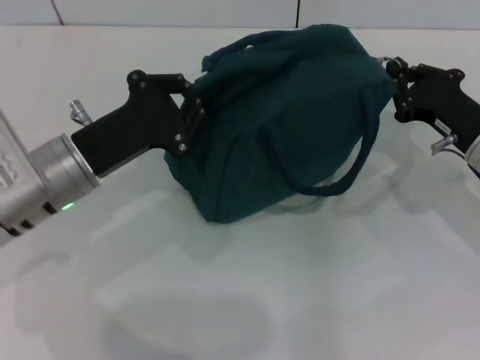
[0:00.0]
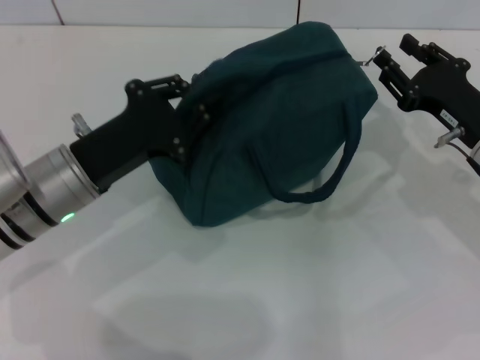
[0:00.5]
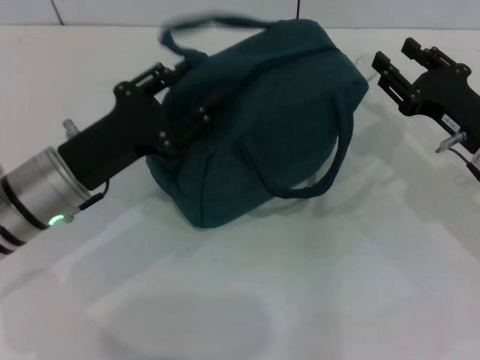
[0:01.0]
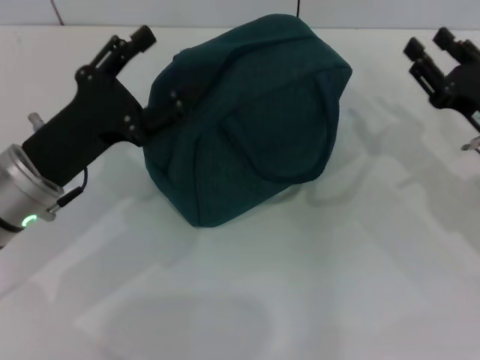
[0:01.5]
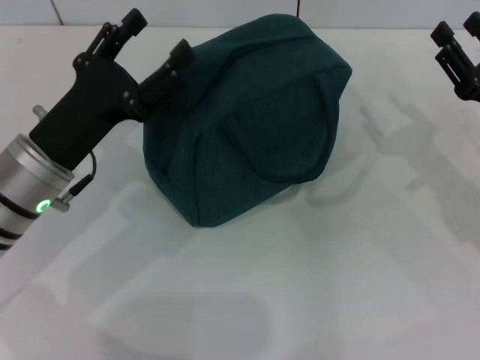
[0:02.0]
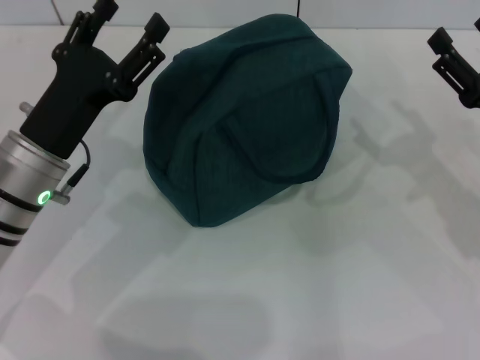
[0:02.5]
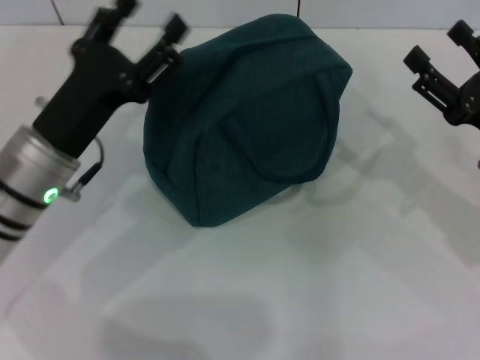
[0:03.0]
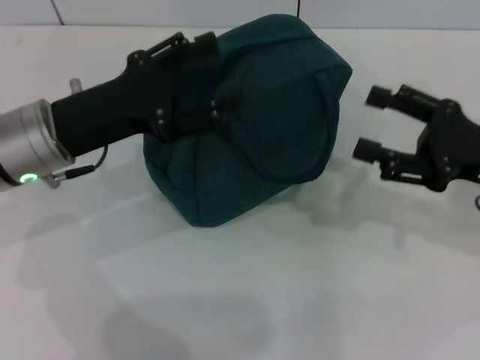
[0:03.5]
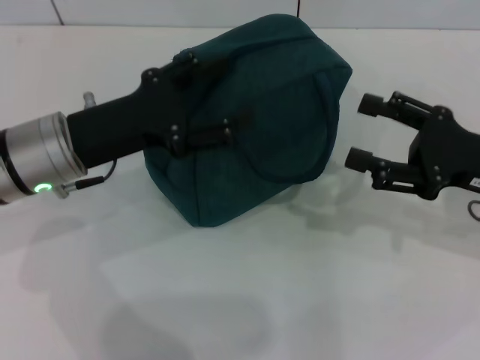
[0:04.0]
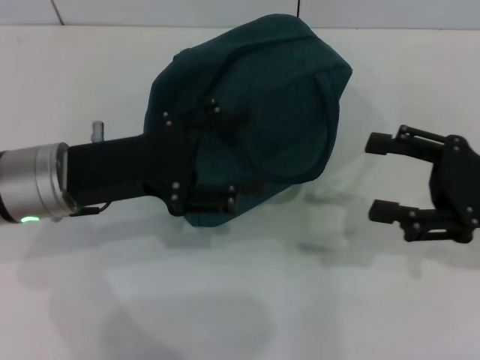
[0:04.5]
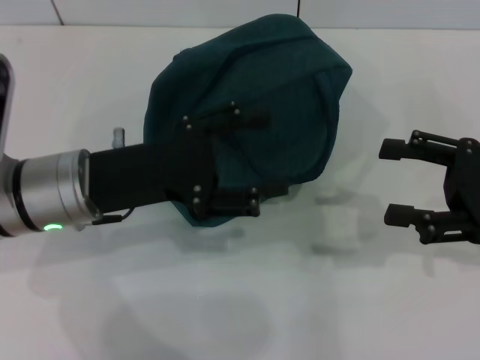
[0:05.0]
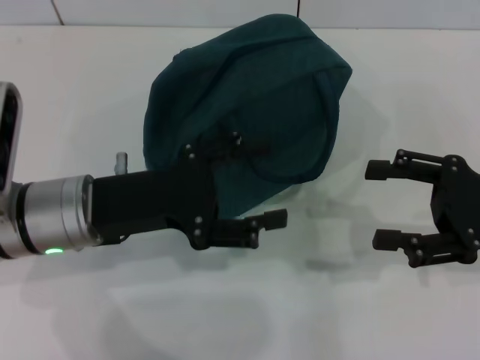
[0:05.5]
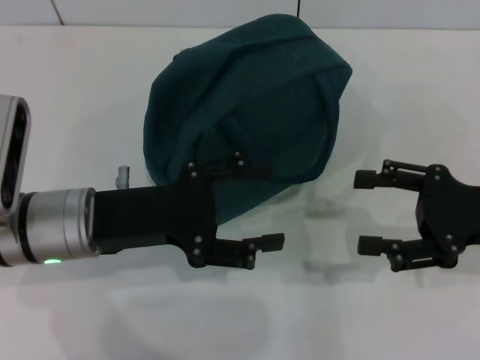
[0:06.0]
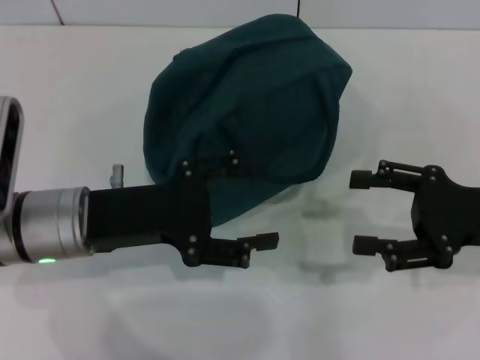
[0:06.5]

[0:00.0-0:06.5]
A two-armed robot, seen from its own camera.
0:00.0 to 0:02.0: The right gripper opens; the left gripper opens its fingers.
0:02.0 to 0:04.5: The right gripper opens up.
0:04.5 to 0:06.5: The grippers make only small movements.

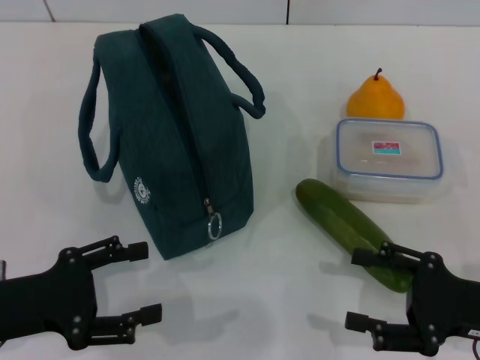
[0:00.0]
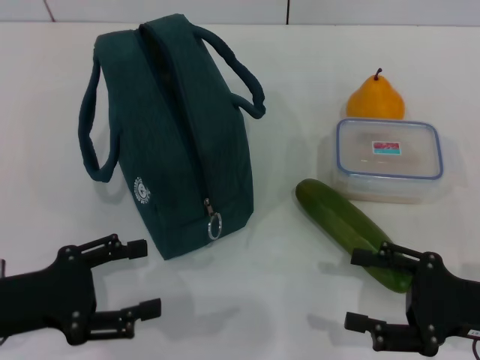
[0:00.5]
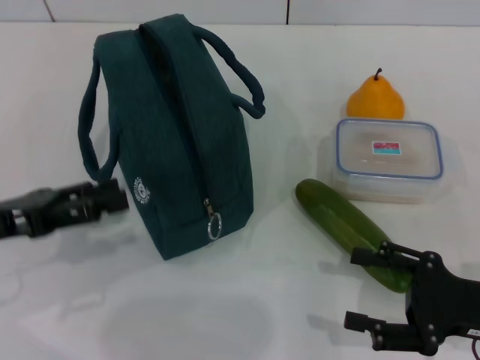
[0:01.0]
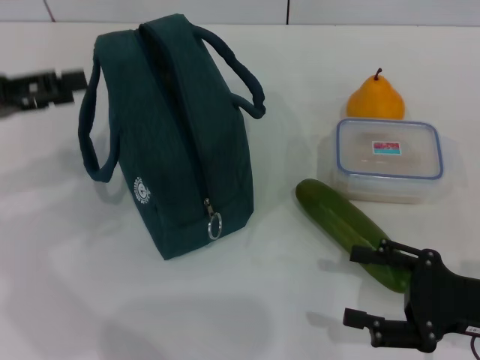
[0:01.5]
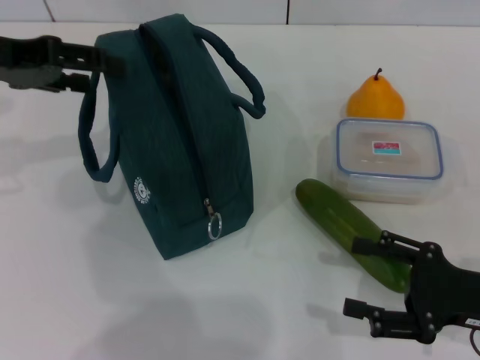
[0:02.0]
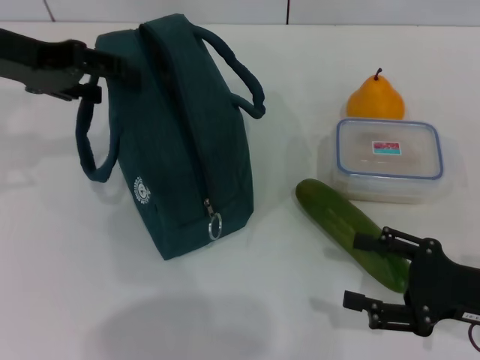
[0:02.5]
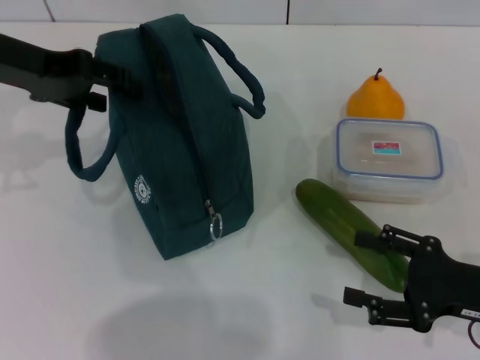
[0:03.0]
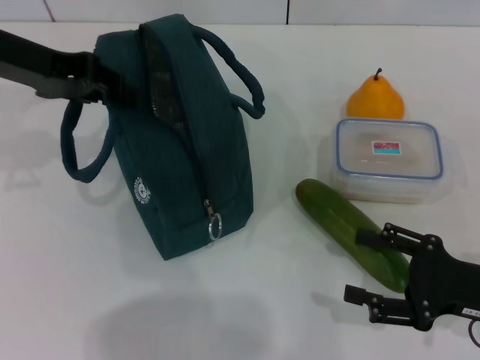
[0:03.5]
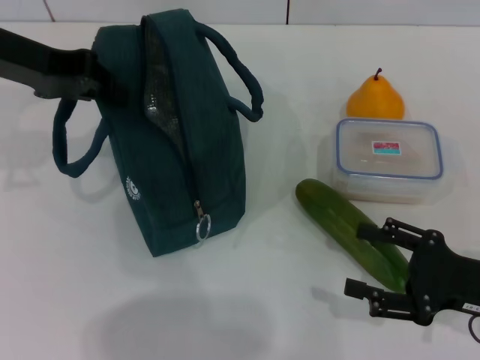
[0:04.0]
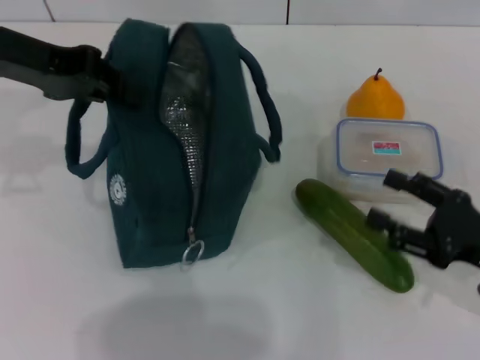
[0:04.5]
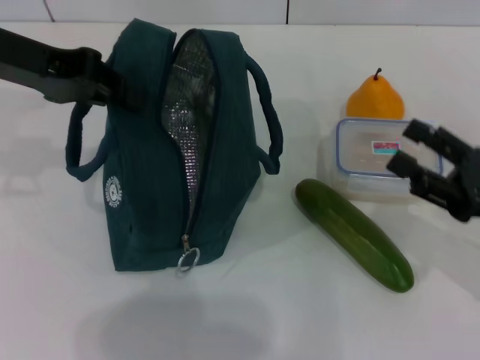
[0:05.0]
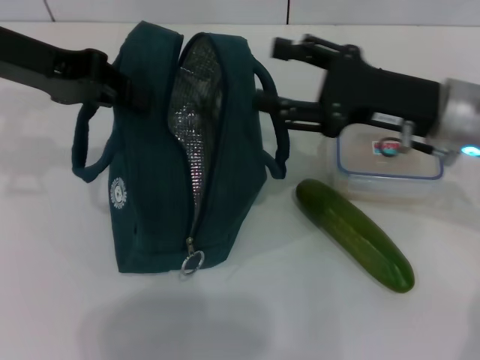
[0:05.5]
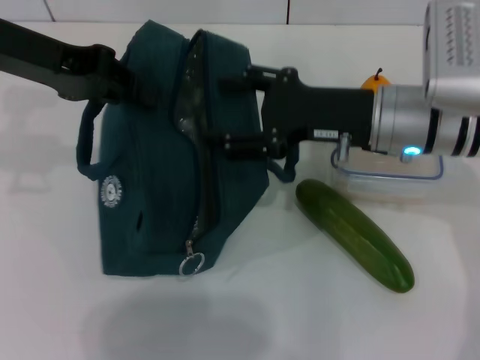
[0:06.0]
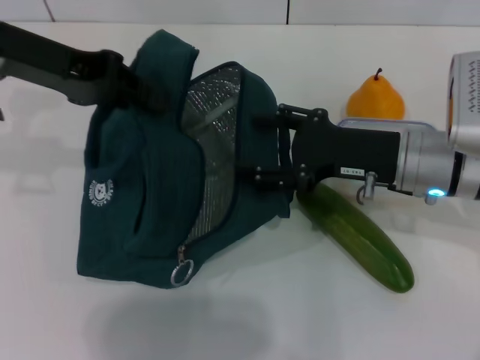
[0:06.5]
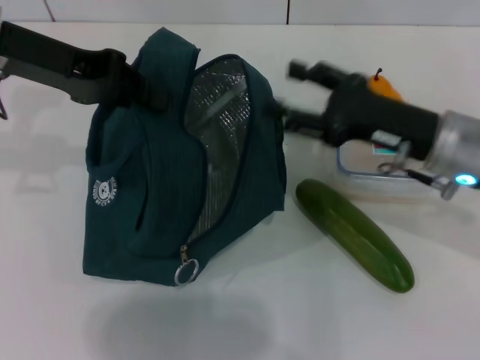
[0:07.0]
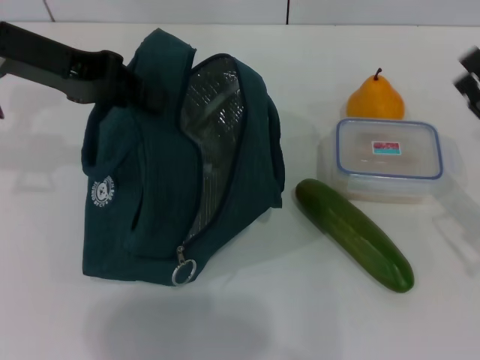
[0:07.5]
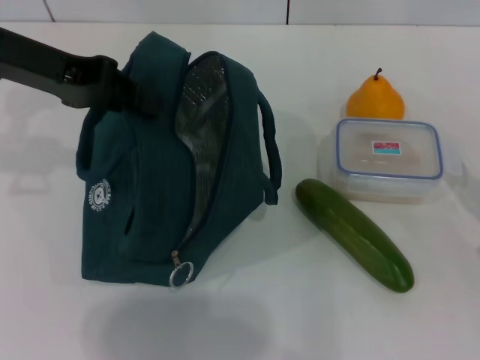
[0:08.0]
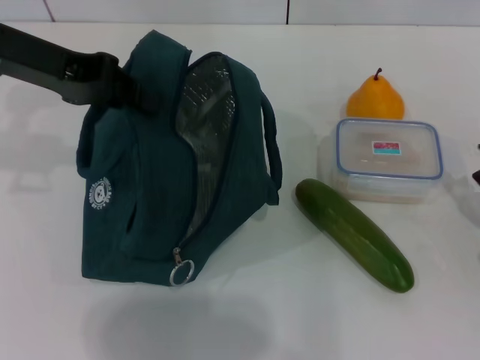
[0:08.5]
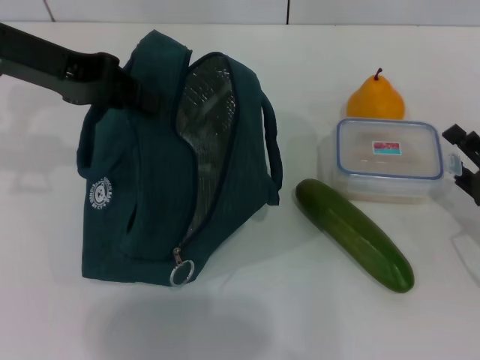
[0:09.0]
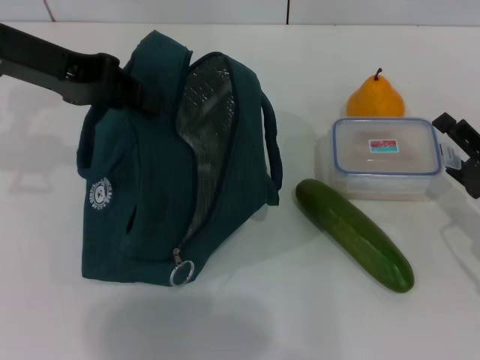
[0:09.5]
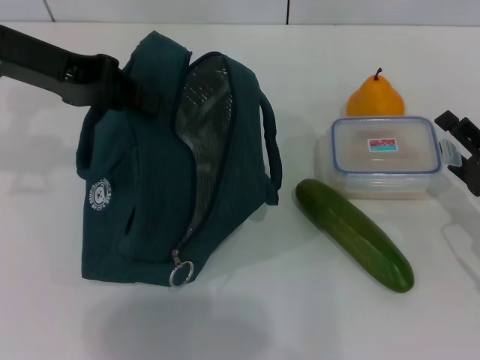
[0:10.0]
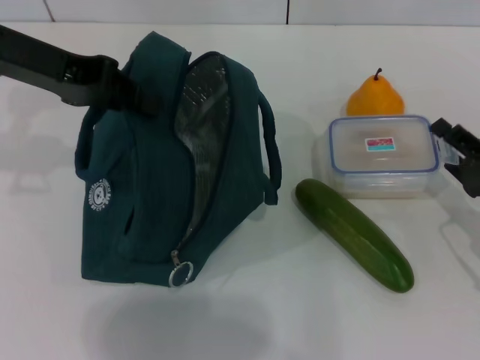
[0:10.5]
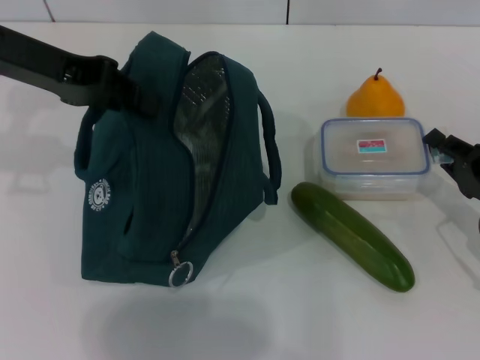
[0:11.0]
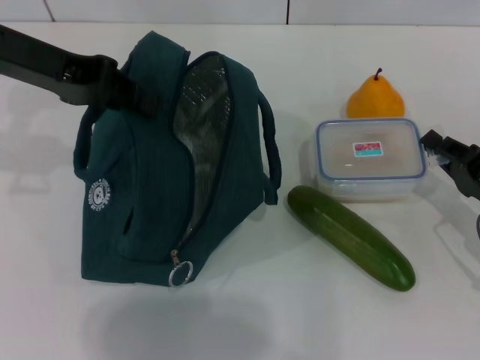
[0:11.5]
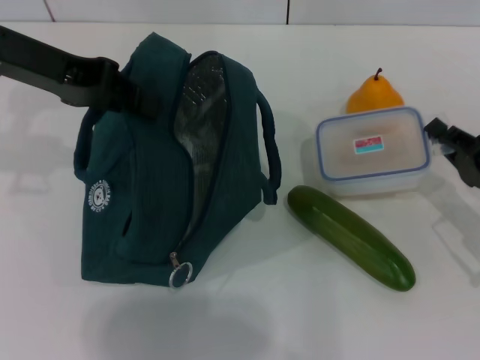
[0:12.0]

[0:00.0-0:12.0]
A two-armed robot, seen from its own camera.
Step, 0:00.0 to 0:07.0: Hold the lunch bag with your left hand.
Step, 0:07.5 to 0:11.5: Pick up the lunch box with your right hand.
0:00.0 to 0:02.0: The left gripper shifts about 25 cm upward and forward.
0:02.0 to 0:04.0: The left gripper closes its fingers.
0:04.0 to 0:06.0: The right gripper heads to the left, forward and upward, covering about 20 cm.
0:06.0 to 0:08.0: The right gripper shifts approximately 25 cm to the right, backward and downward.
0:08.0 to 0:10.0: The right gripper moves roughly 5 cm.
0:10.0 to 0:12.0: The right gripper closes up.

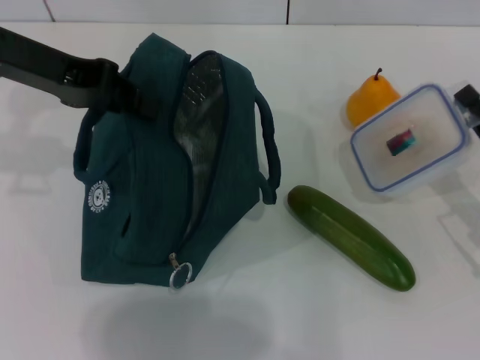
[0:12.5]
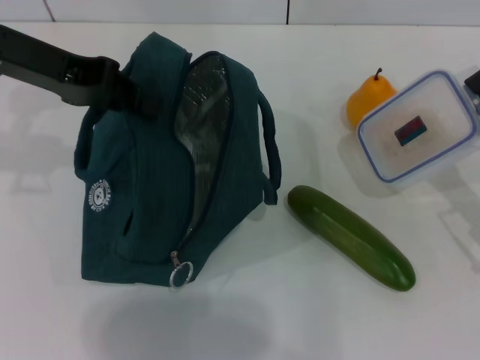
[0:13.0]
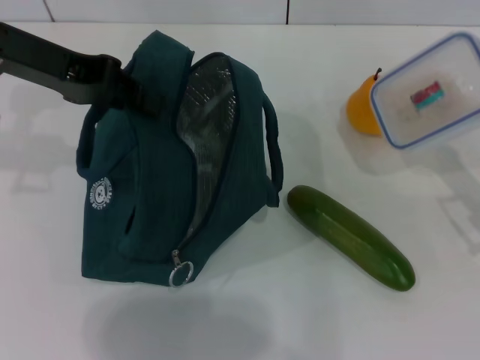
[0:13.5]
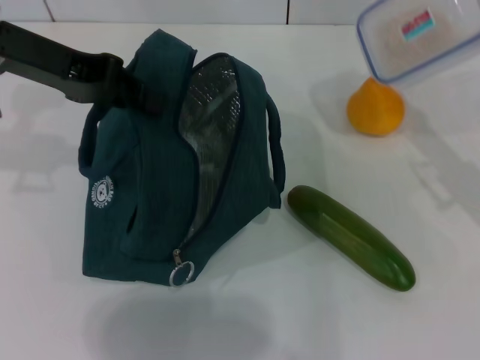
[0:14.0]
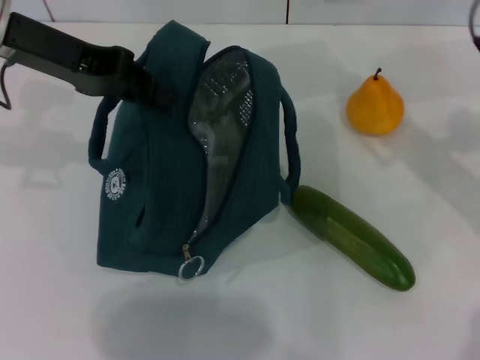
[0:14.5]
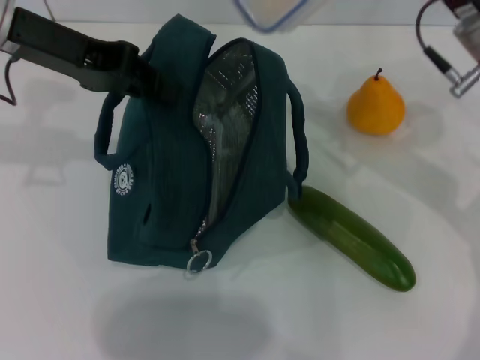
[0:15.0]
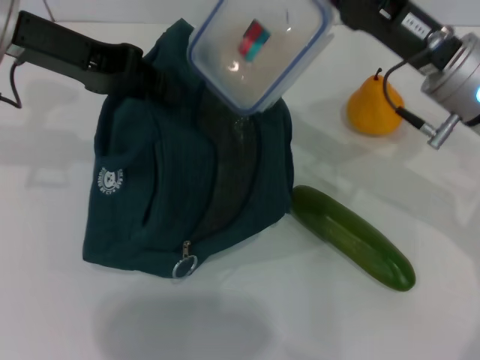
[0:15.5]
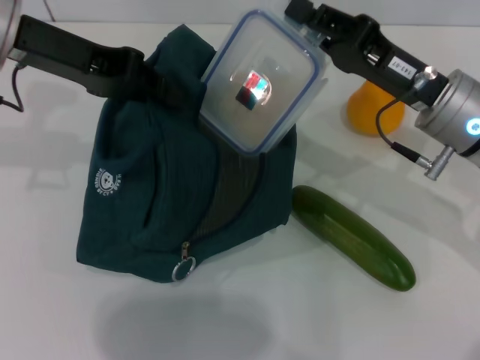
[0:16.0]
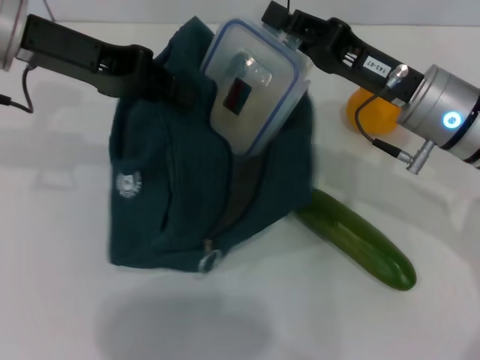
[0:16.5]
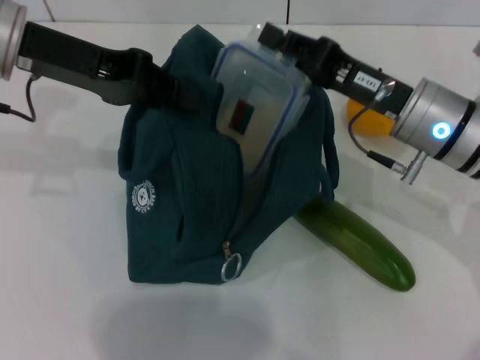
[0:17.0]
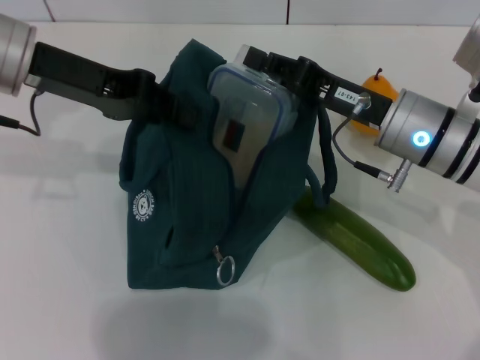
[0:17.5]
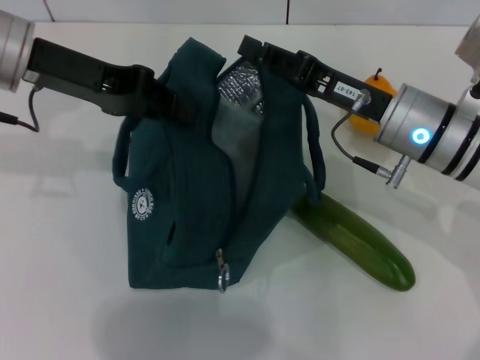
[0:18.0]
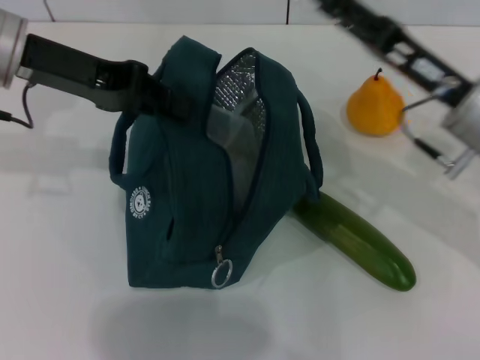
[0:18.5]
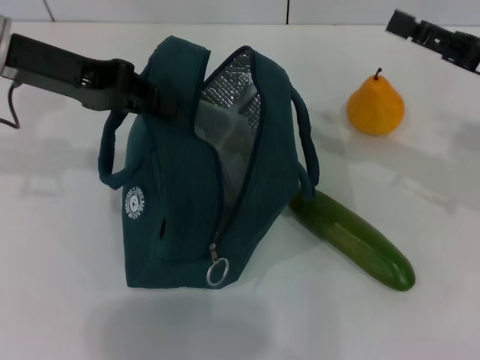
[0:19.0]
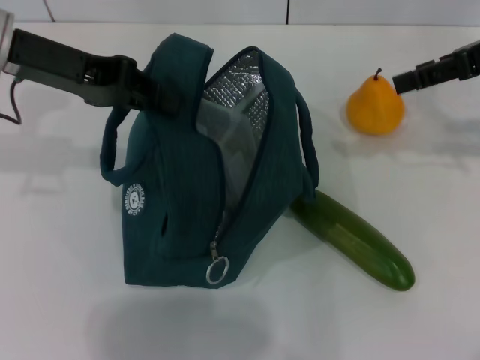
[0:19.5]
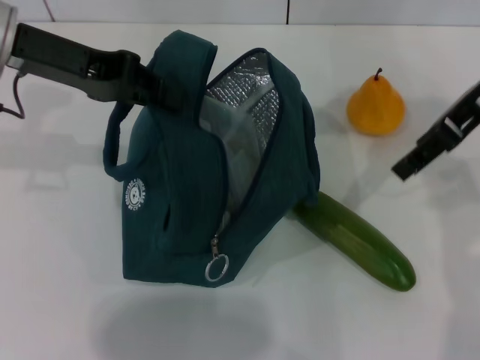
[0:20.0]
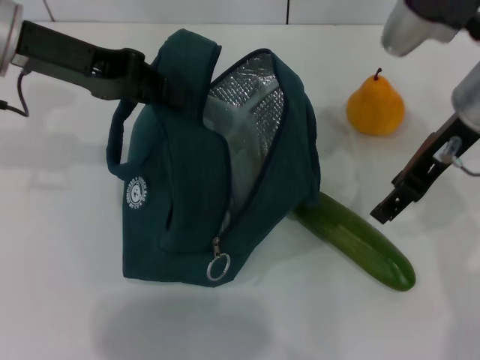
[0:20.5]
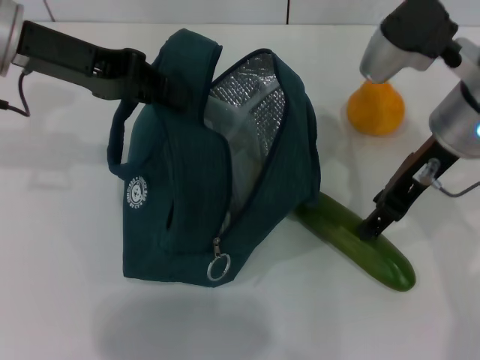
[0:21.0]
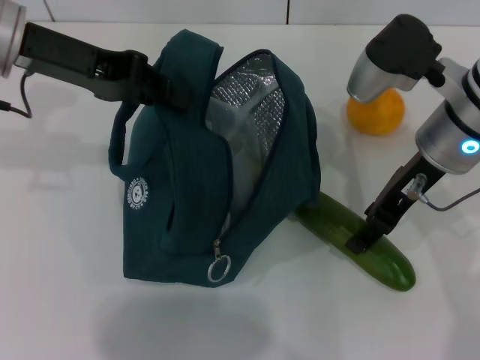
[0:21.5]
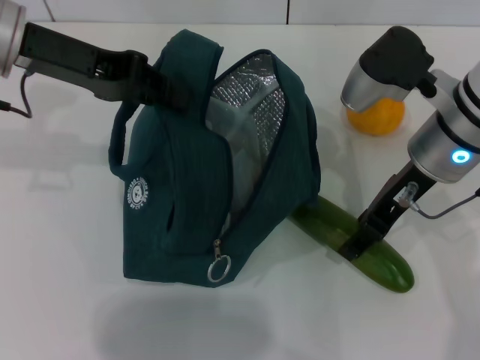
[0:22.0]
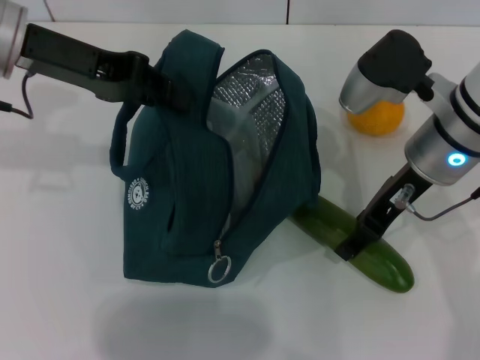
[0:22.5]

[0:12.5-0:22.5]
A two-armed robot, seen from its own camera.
Step, 0:12.5 to 0:18.0: Place the lunch box into the lunch bag with your right hand.
0:12.5 to 0:14.5: The right gripper is displaced upward, forward and to the left by some 15 cm.
0:14.5 to 0:16.5: The right gripper shifts some 5 cm to the left.
0:16.5 to 0:18.5: The right gripper opens up.
0:18.5 to 0:20.5: The right gripper shifts some 10 cm upward.
0:20.5 to 0:22.5: The right gripper goes approximately 5 cm downward.
